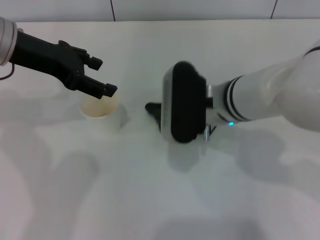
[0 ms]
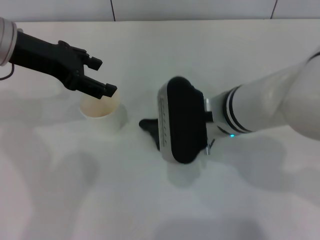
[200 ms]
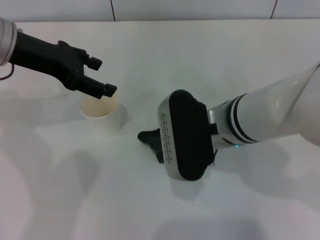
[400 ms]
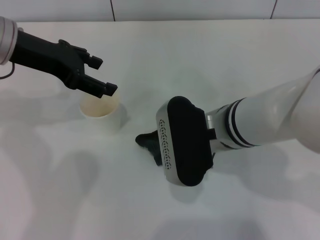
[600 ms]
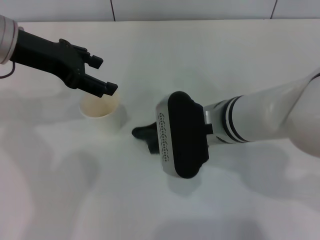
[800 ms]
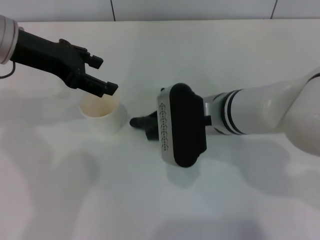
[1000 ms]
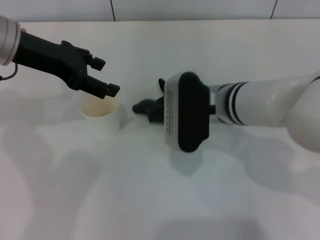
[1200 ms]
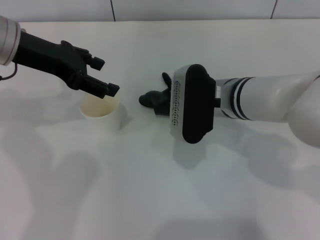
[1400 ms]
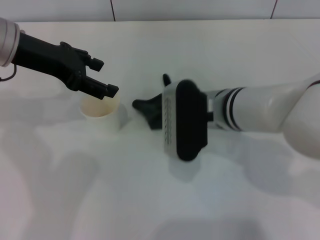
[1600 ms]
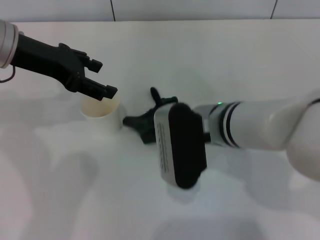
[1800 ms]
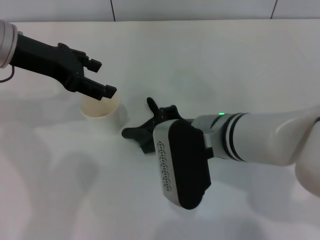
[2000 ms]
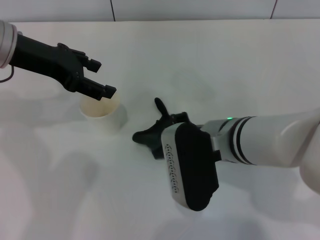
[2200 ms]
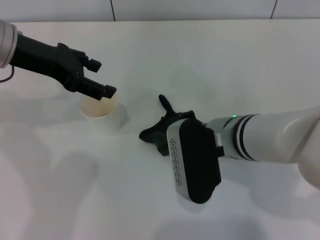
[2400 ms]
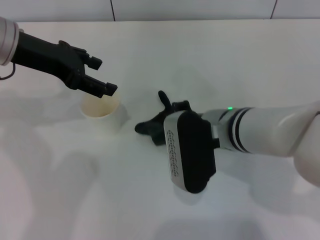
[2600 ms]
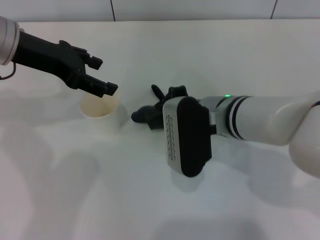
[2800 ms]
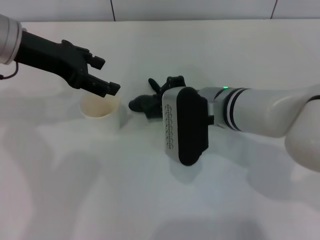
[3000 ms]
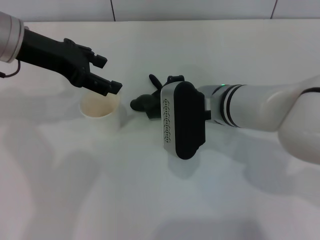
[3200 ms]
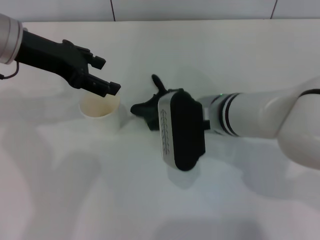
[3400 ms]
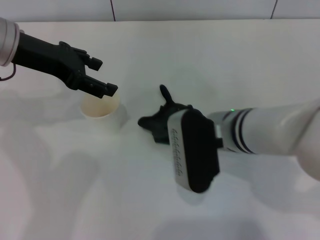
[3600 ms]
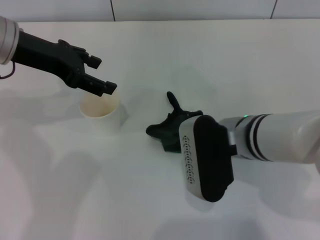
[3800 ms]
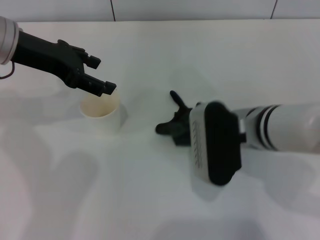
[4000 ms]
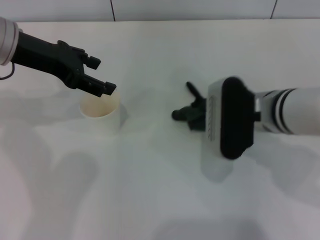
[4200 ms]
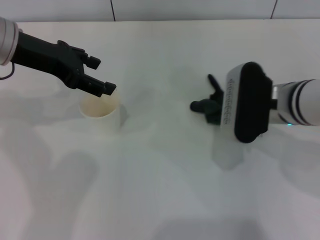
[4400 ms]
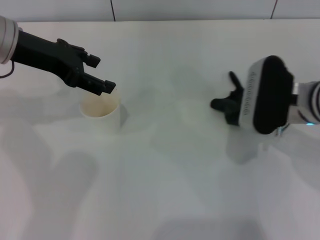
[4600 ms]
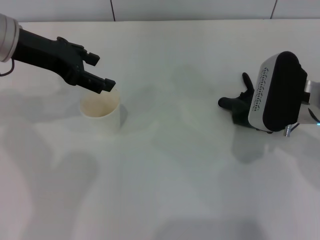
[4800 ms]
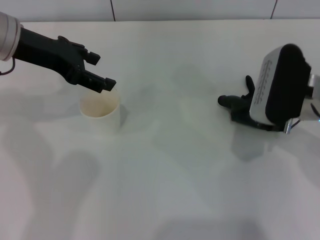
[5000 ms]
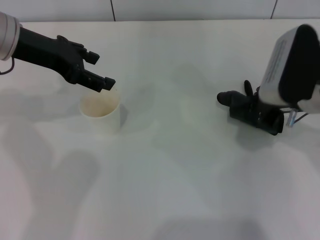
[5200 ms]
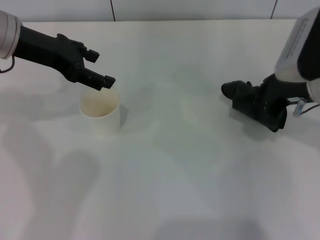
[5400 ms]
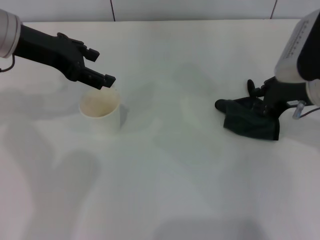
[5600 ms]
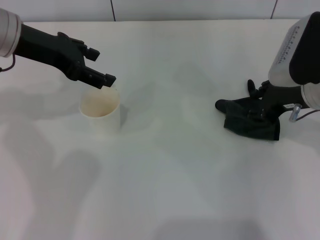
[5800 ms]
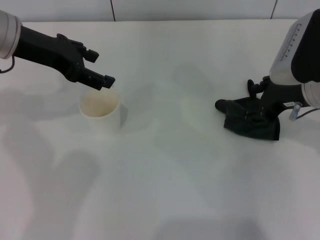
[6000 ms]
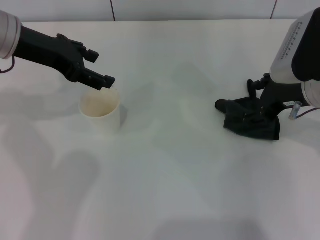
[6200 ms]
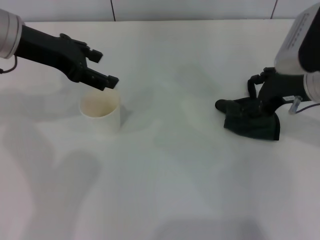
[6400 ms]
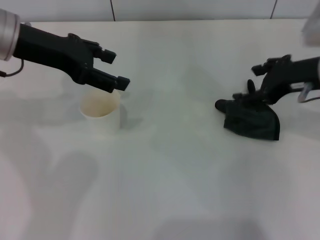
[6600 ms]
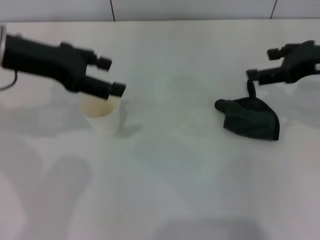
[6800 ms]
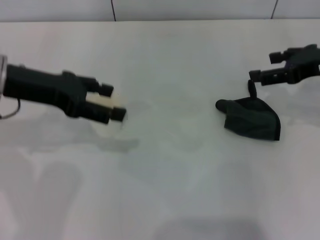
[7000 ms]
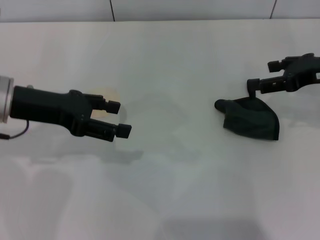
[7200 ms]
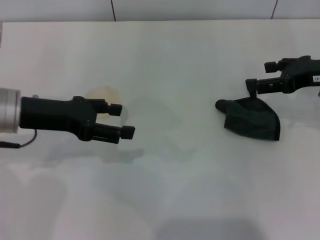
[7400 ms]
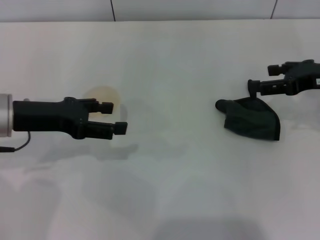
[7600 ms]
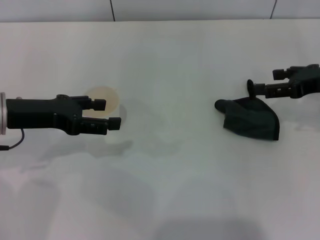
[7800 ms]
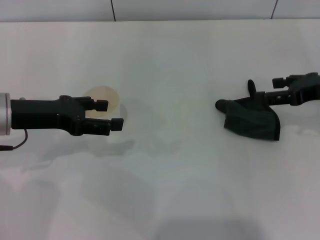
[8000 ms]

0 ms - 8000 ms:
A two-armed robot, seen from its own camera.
Step, 0 ms - 4000 ms: Wipe the stains off the table with the right gripper.
Step, 4200 ms - 6400 ms: Place the rag on the table with the right gripper.
0 ms - 3200 ms: The grippers move only a little.
3200 ms - 4800 ms: The right gripper goes about 10 cm to the right.
4800 ms - 6400 ms: The right gripper opens its fingers.
6400 ms - 8000 ms: The left gripper travels downward and backward by about 10 cm. The right gripper shifts some 10 cm to the right.
